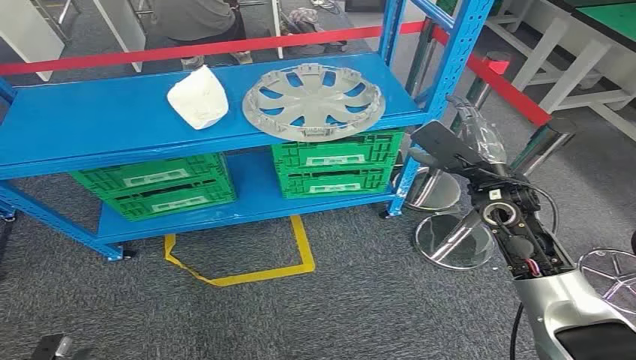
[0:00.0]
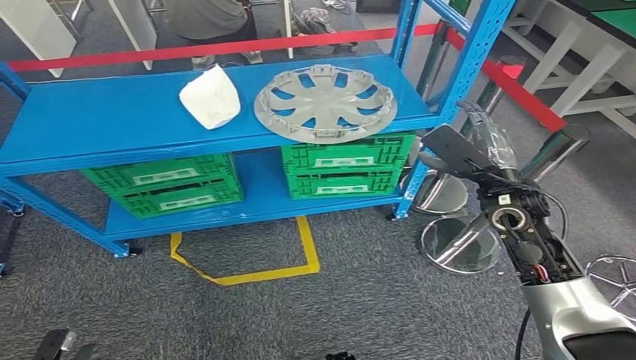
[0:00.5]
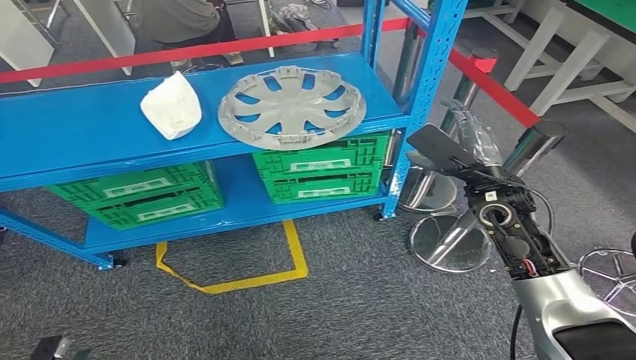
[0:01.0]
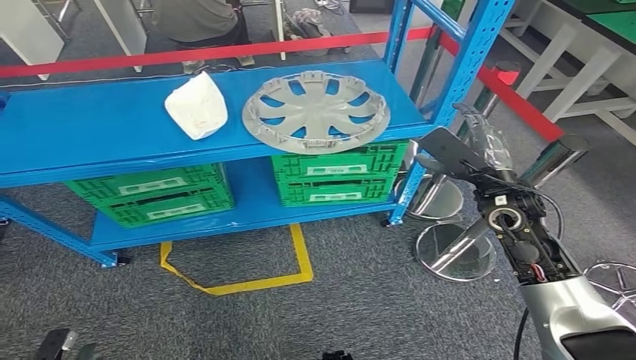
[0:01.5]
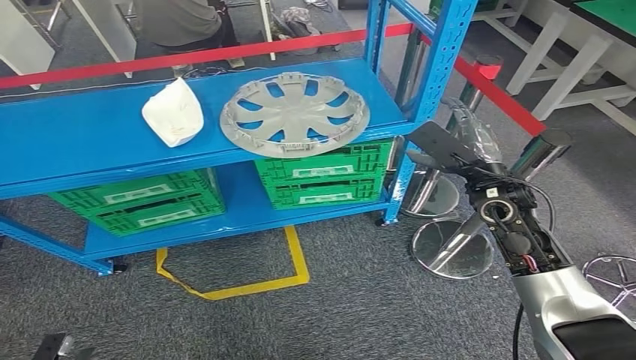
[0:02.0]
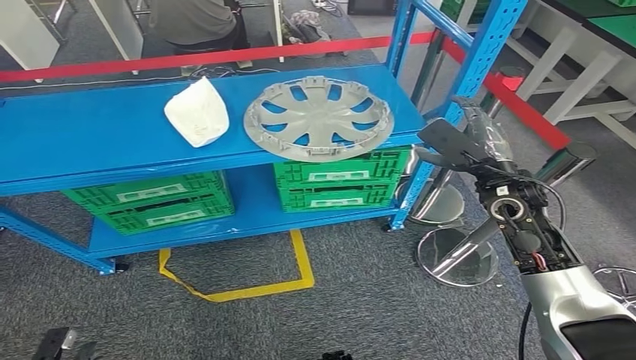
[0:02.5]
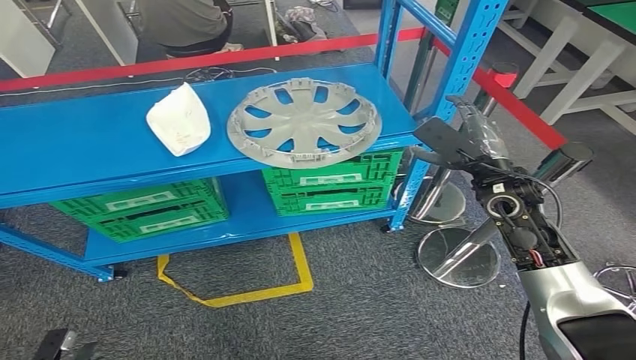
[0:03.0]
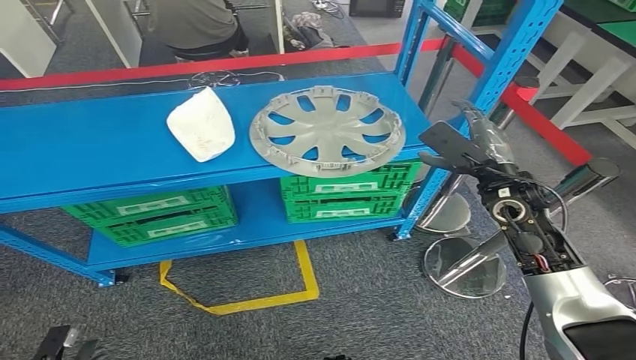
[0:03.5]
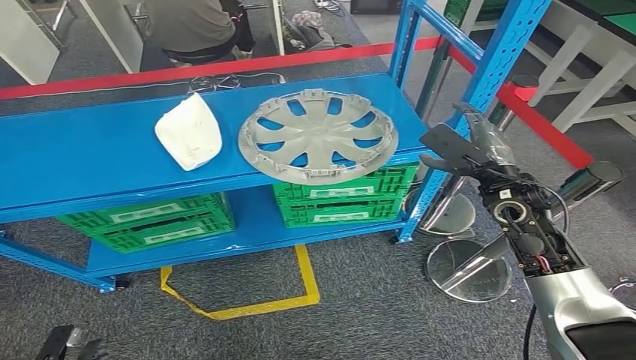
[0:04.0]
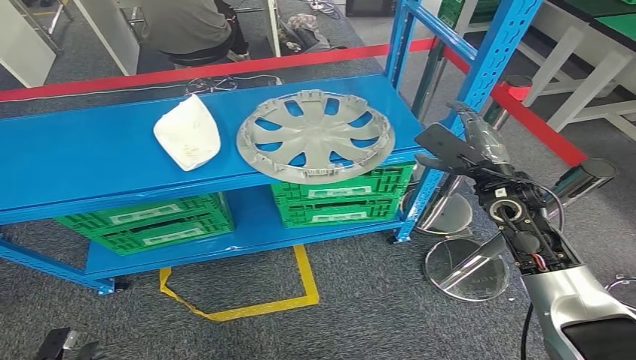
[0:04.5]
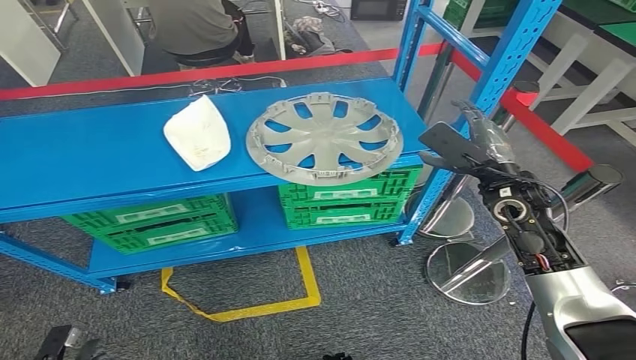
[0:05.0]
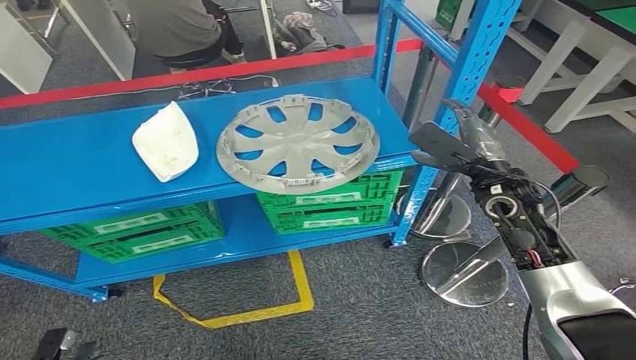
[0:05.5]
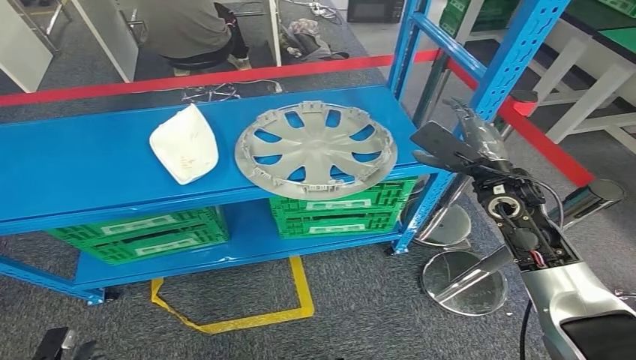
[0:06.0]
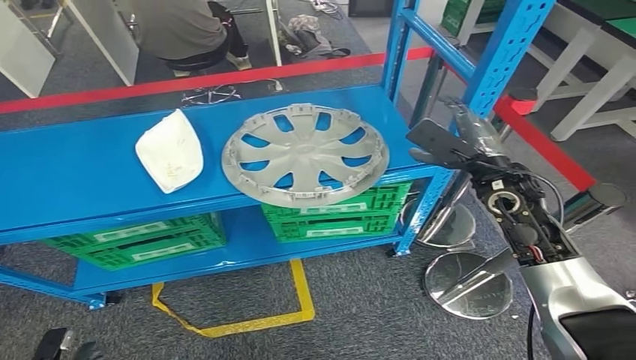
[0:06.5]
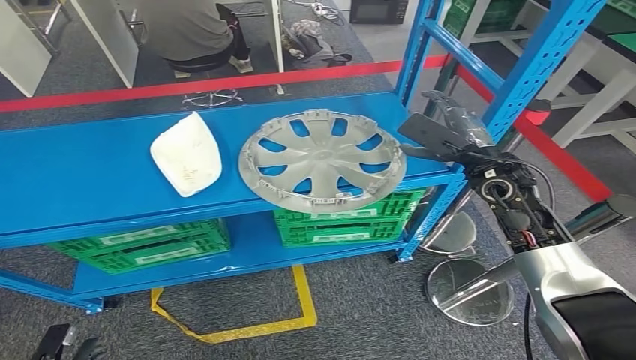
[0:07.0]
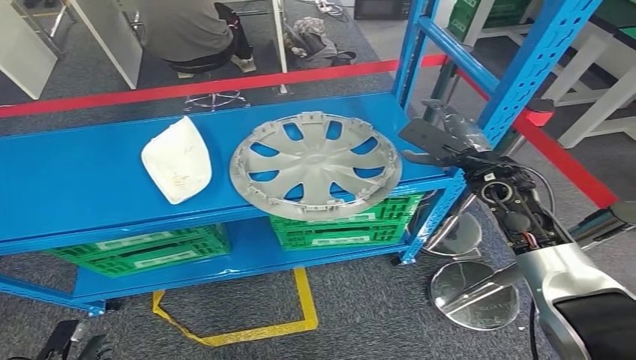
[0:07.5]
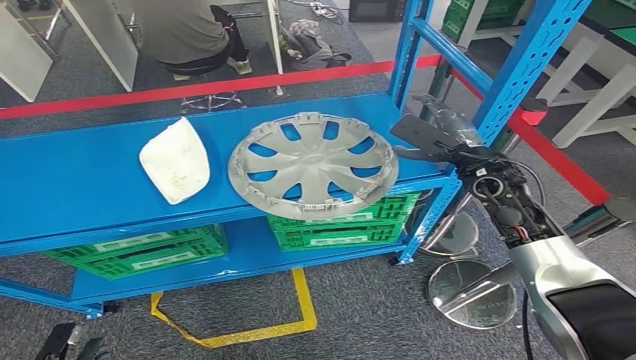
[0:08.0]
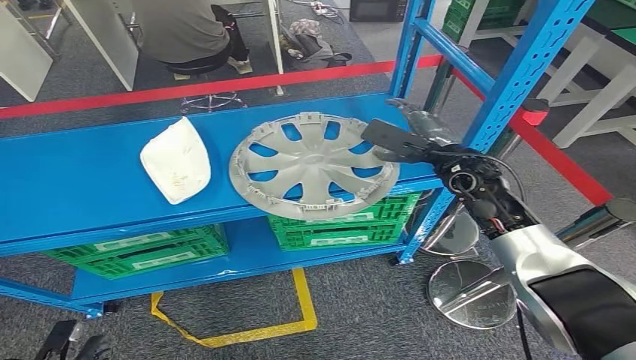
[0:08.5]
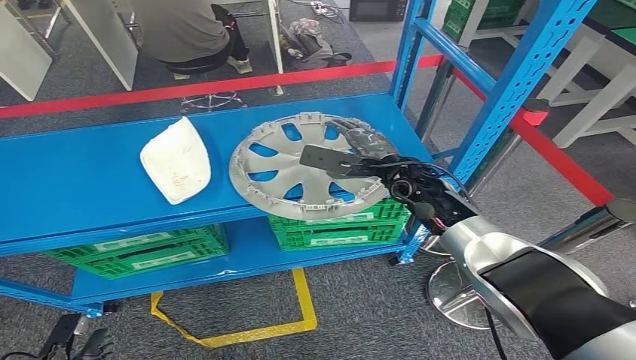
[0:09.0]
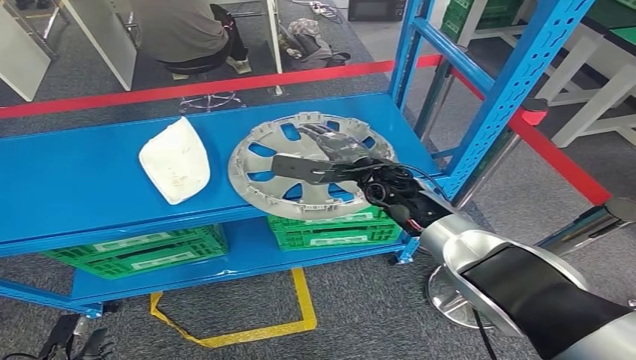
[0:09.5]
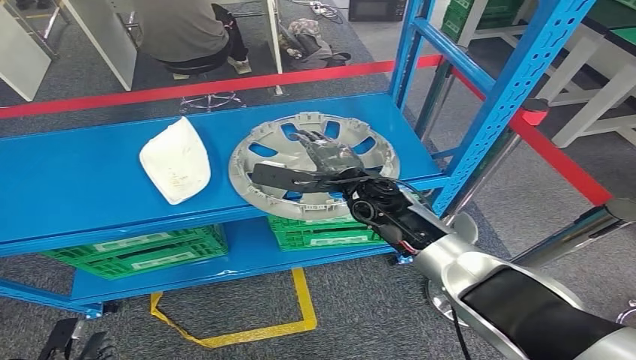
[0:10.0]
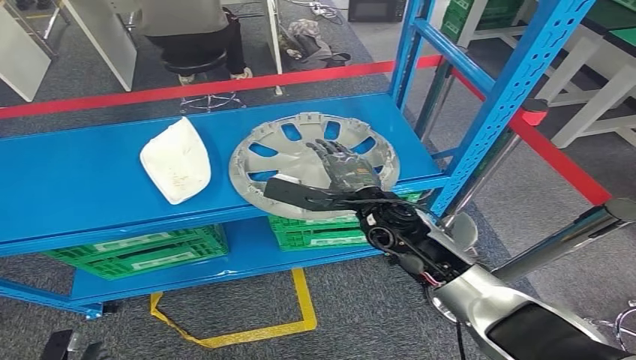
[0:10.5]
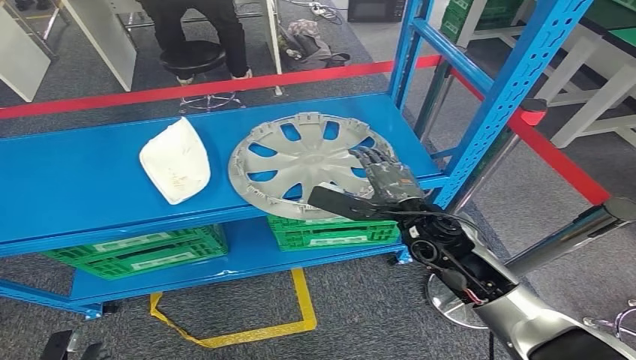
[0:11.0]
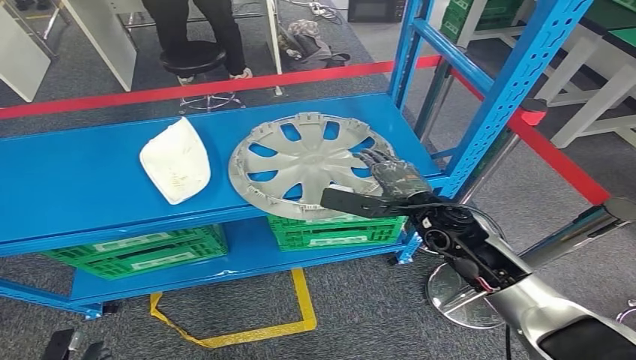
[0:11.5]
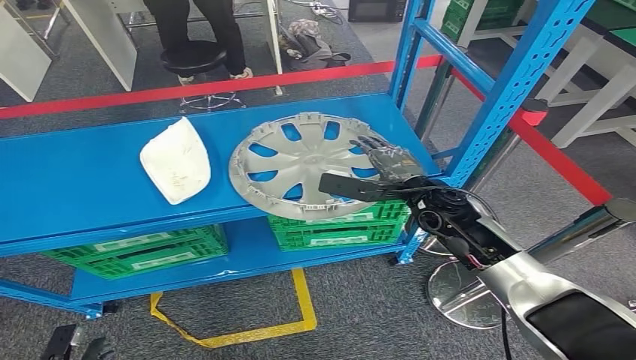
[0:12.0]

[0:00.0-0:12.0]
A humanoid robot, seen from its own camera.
0:08.0 to 0:10.0: The right hand heads to the left, covering roughly 20 cm.
0:10.0 to 0:12.0: The right hand moves to the right, some 10 cm.

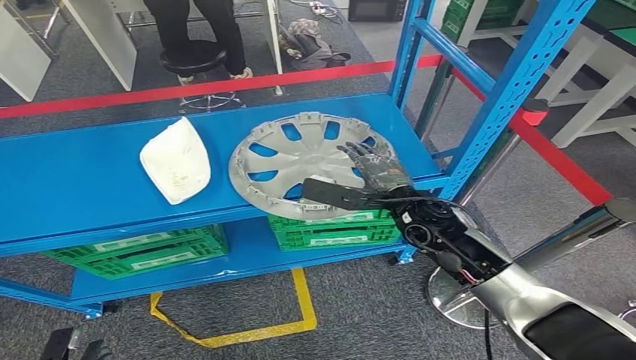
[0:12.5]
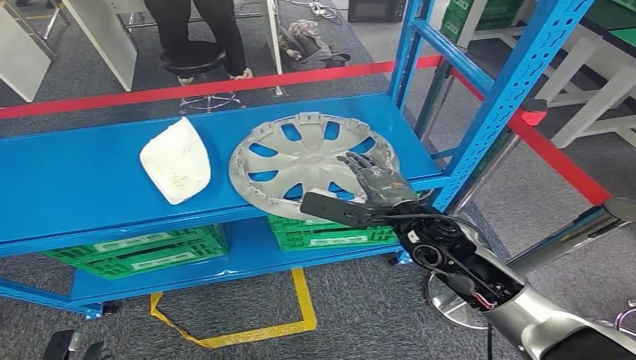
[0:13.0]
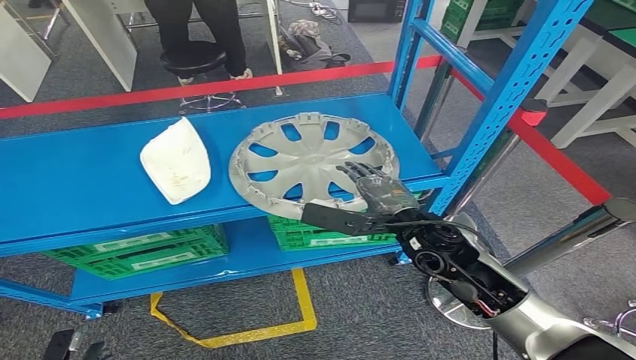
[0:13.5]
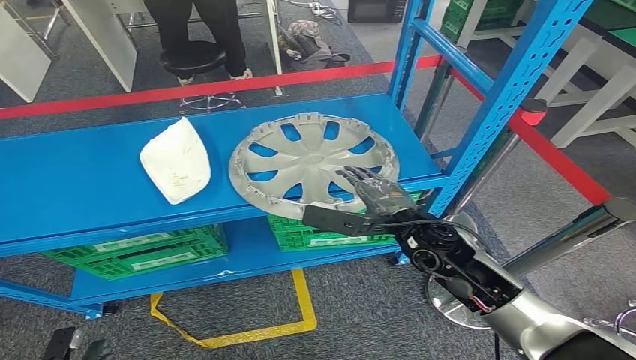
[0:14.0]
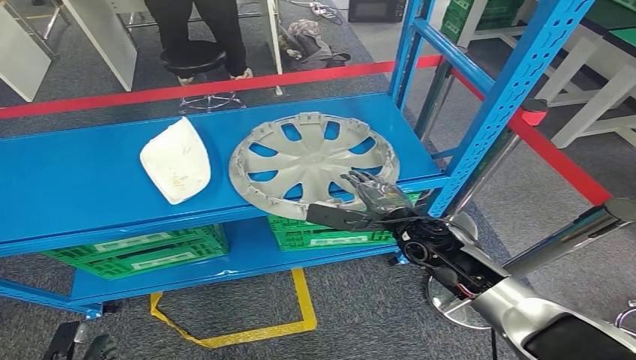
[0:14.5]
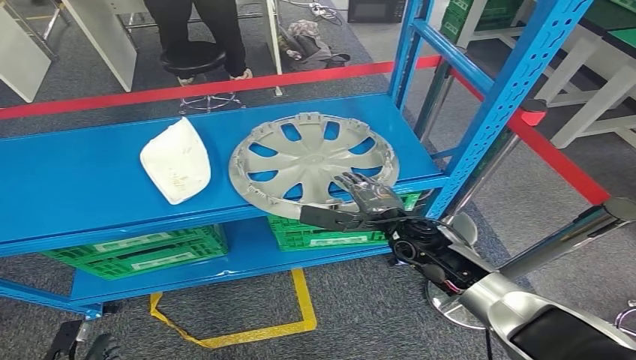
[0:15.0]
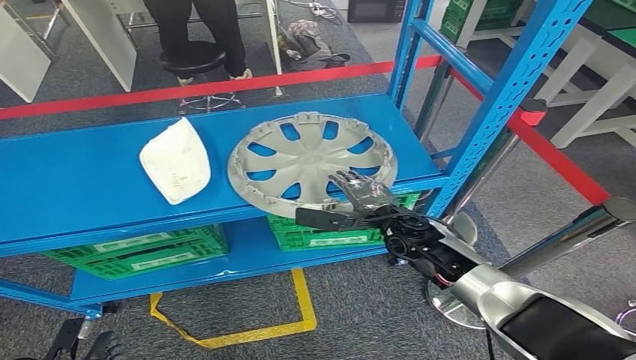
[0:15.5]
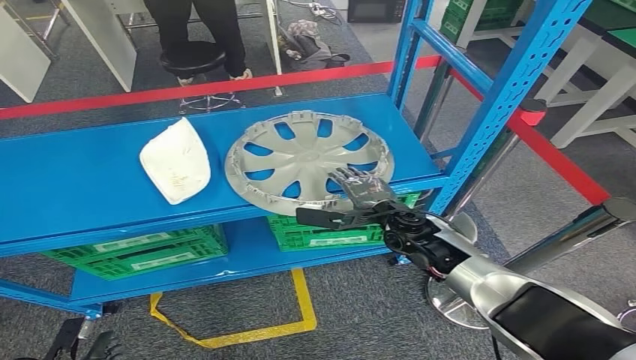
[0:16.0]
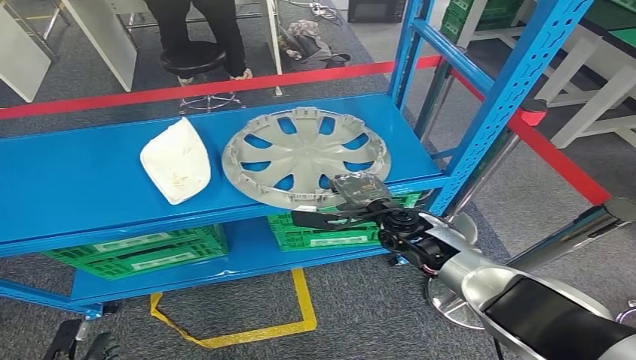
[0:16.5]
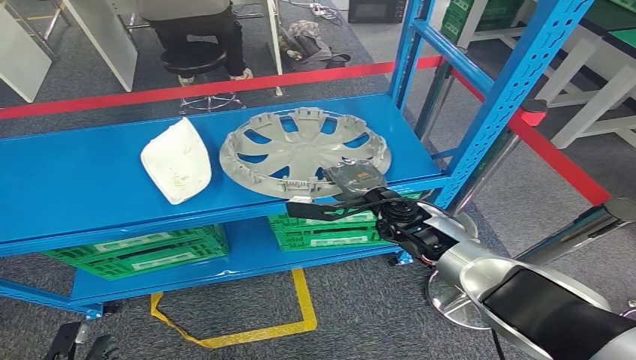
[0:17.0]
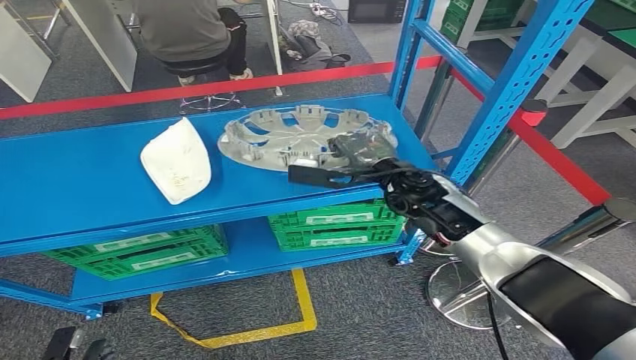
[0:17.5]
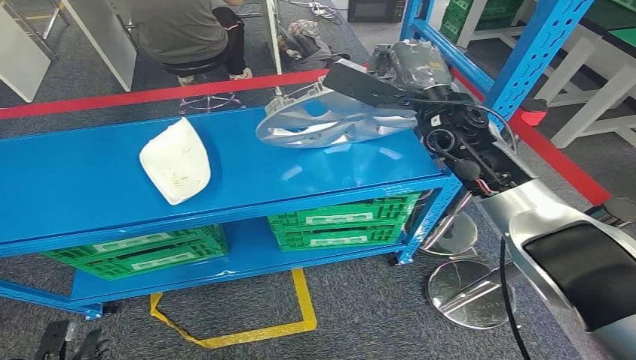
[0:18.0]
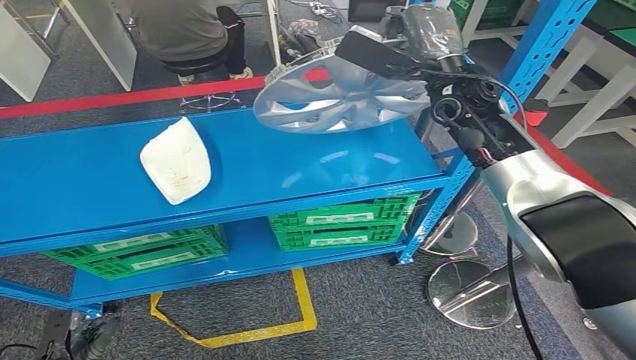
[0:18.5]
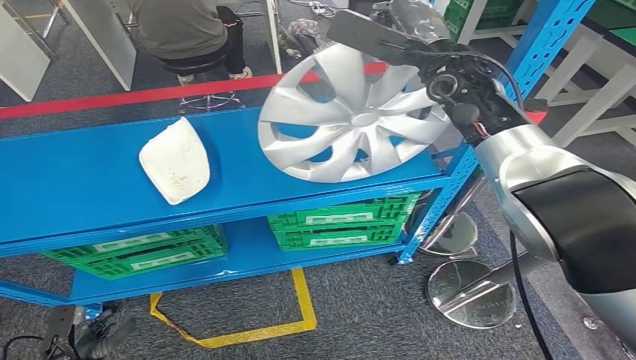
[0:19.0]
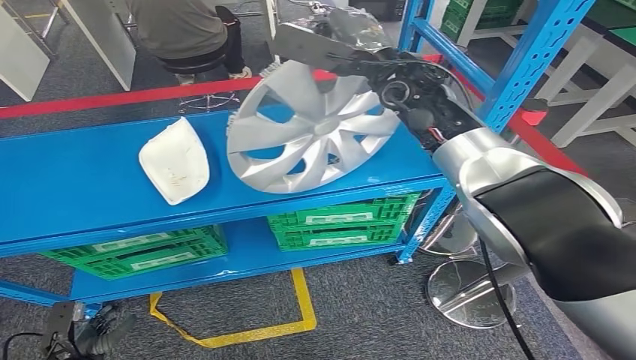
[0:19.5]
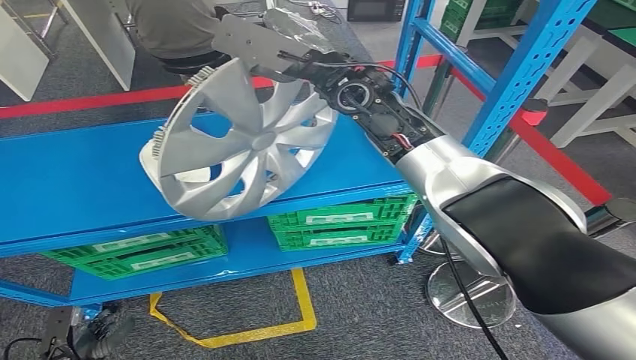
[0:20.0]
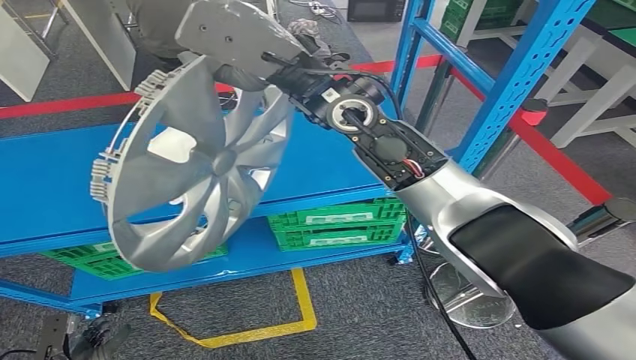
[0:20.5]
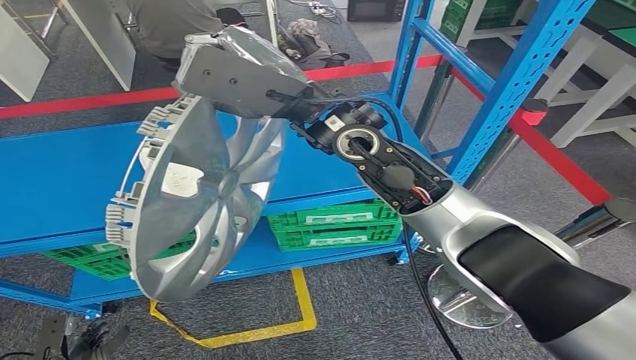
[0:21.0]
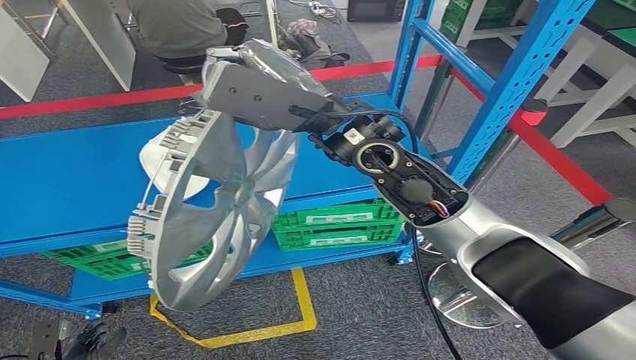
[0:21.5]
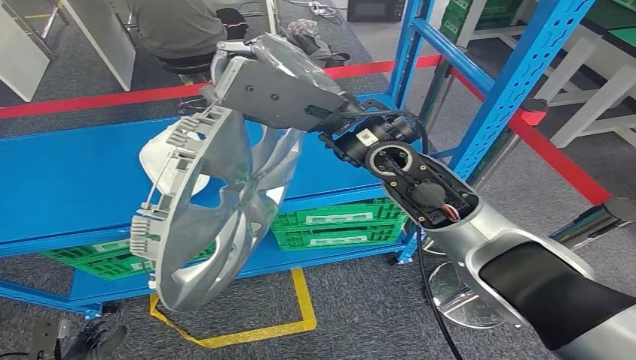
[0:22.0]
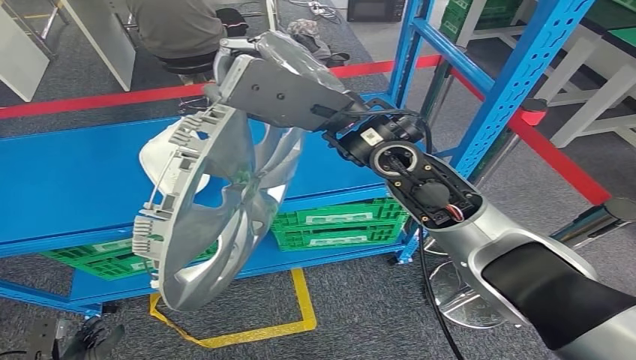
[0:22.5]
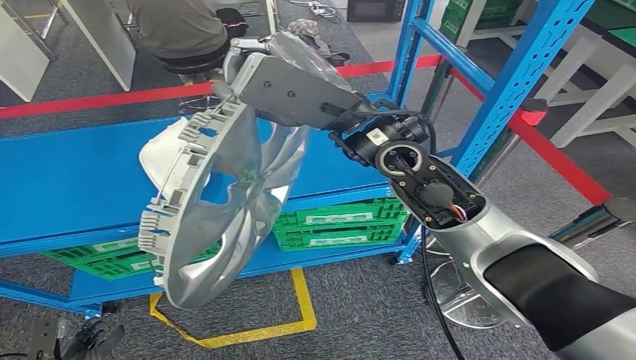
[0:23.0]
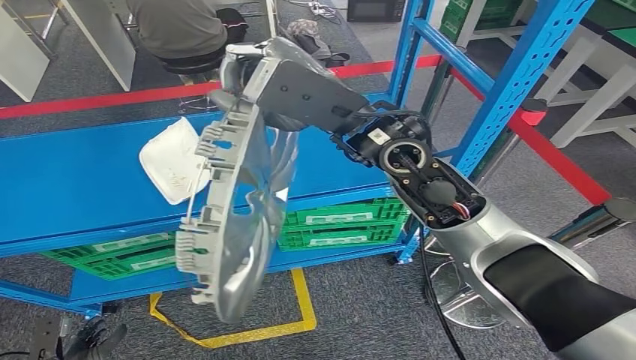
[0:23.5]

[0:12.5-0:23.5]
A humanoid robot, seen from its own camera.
Step, 0:12.5 to 0:20.0: Pick up the small component from the shelf.
0:12.5 to 0:14.5: The right hand heads downward, covering roughly 5 cm.
0:14.5 to 0:16.0: The hands make only small movements.
0:21.5 to 0:23.5: There are only small adjustments of the hands.
